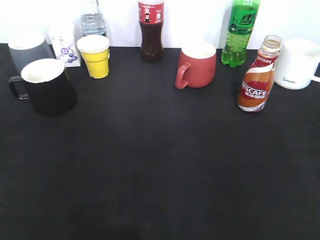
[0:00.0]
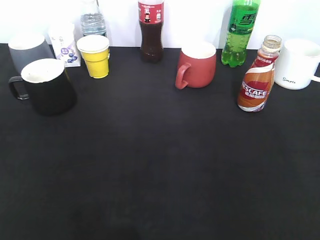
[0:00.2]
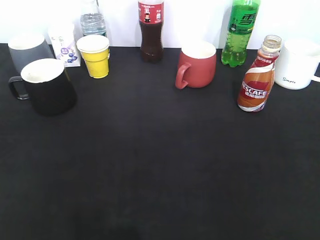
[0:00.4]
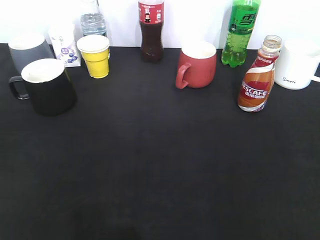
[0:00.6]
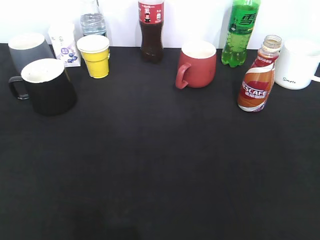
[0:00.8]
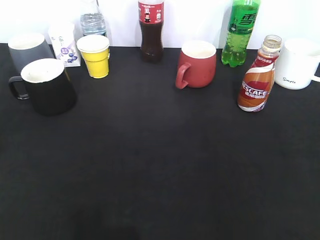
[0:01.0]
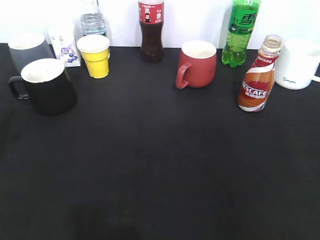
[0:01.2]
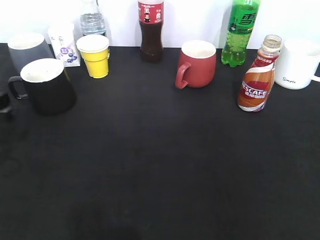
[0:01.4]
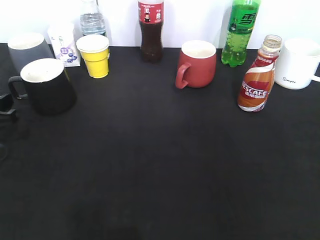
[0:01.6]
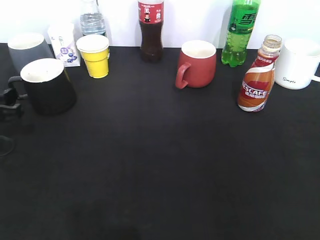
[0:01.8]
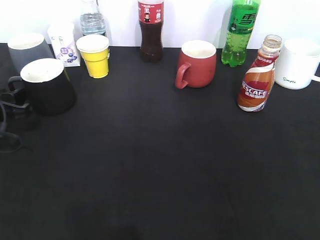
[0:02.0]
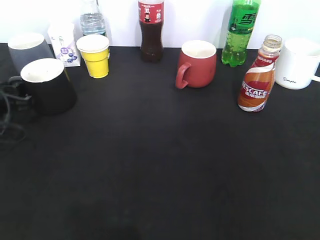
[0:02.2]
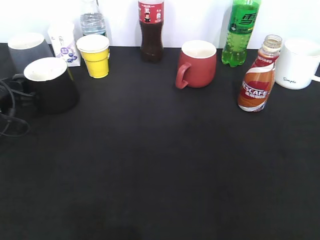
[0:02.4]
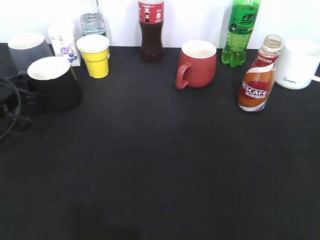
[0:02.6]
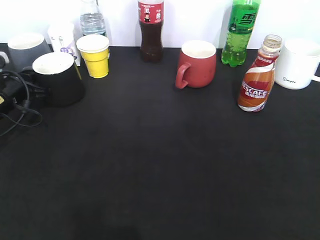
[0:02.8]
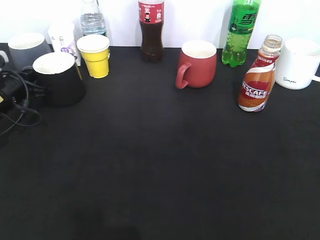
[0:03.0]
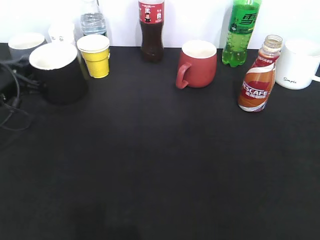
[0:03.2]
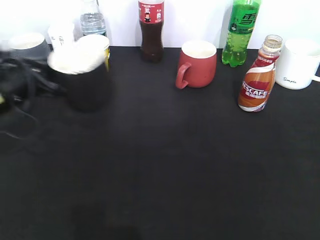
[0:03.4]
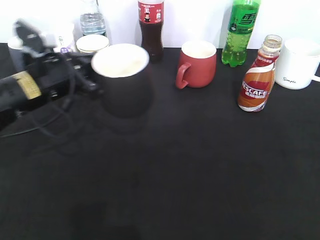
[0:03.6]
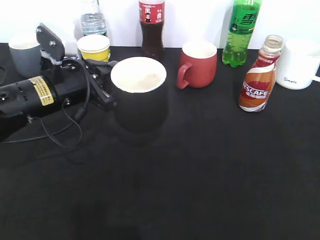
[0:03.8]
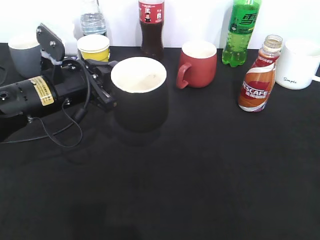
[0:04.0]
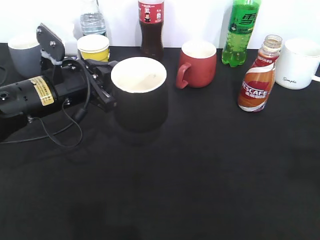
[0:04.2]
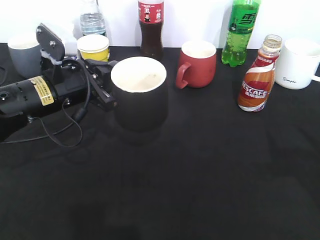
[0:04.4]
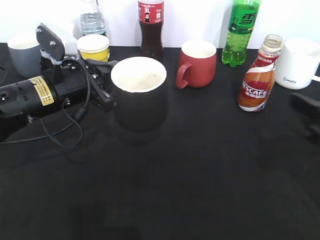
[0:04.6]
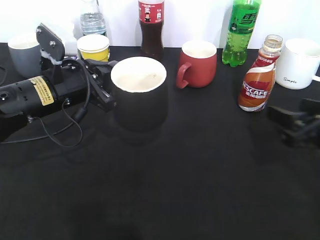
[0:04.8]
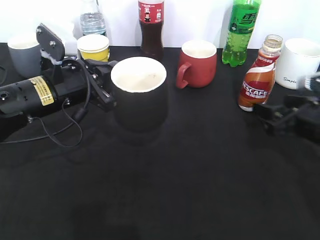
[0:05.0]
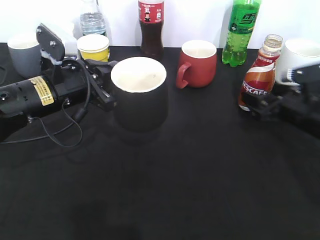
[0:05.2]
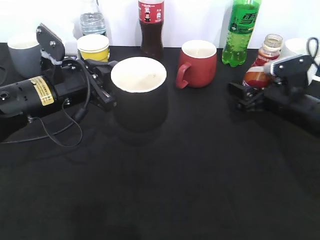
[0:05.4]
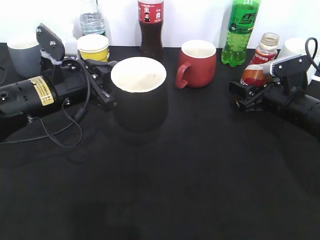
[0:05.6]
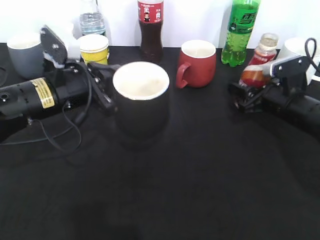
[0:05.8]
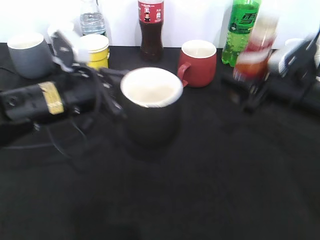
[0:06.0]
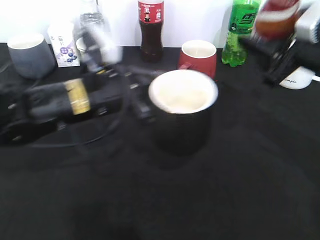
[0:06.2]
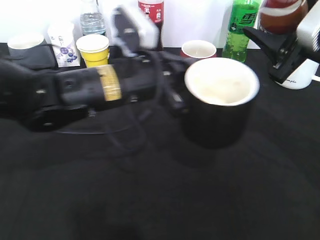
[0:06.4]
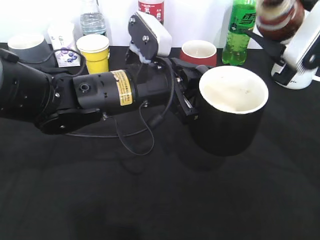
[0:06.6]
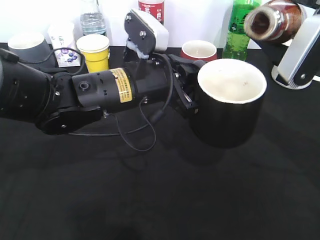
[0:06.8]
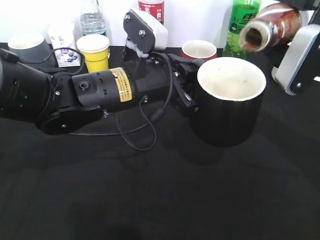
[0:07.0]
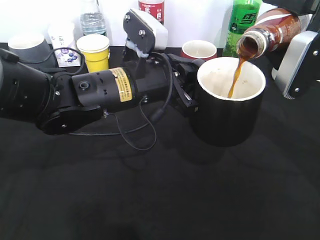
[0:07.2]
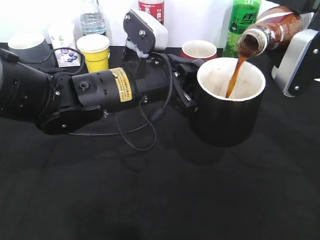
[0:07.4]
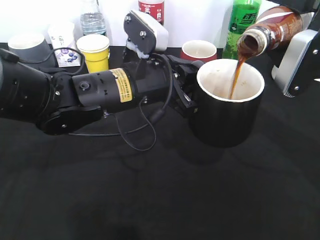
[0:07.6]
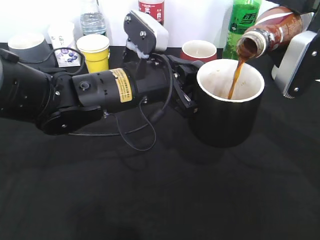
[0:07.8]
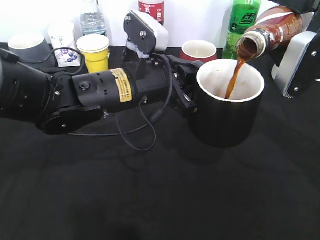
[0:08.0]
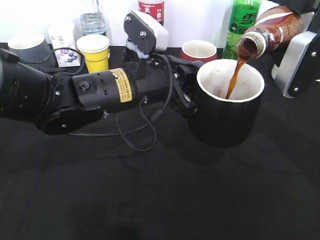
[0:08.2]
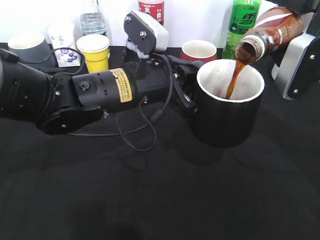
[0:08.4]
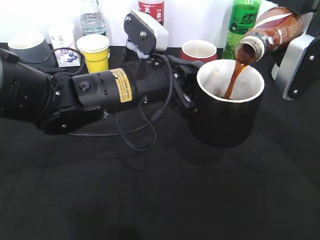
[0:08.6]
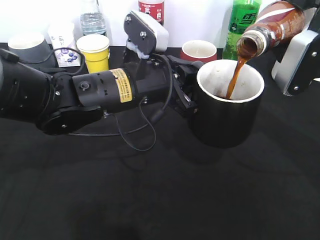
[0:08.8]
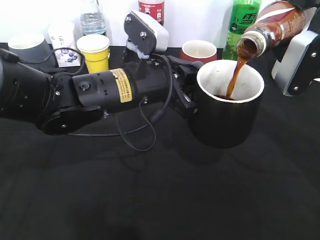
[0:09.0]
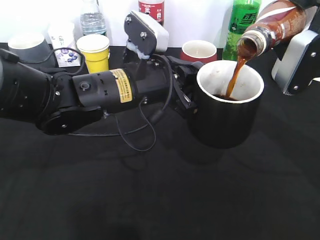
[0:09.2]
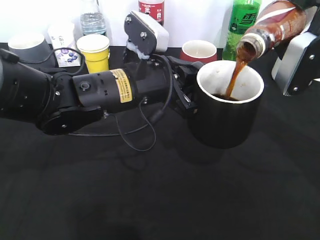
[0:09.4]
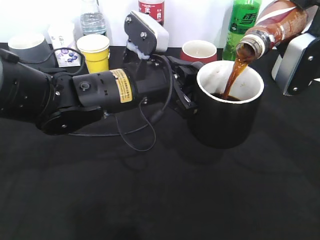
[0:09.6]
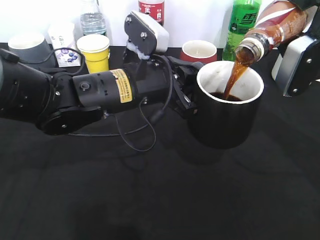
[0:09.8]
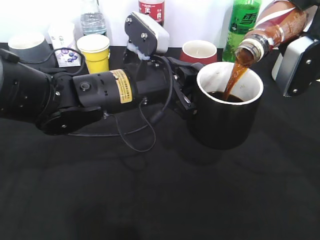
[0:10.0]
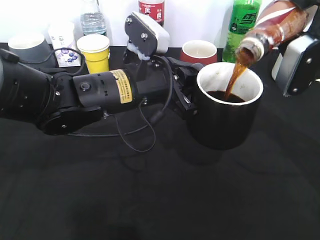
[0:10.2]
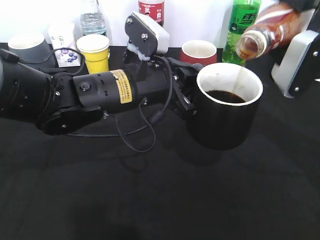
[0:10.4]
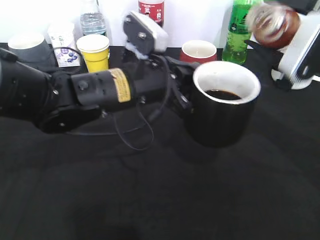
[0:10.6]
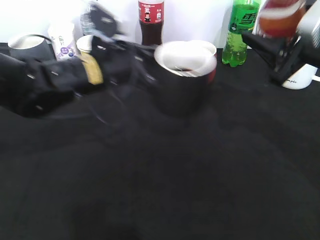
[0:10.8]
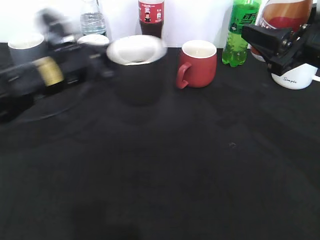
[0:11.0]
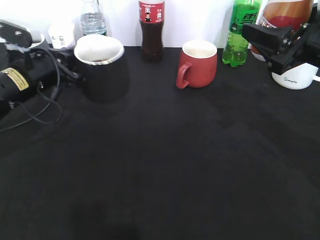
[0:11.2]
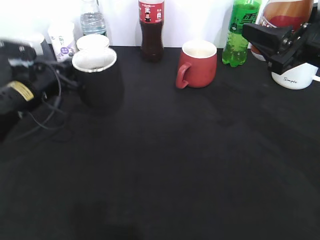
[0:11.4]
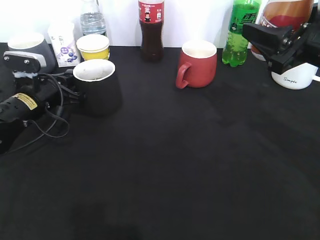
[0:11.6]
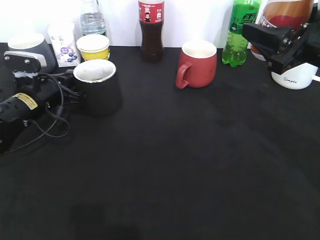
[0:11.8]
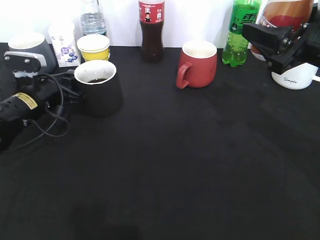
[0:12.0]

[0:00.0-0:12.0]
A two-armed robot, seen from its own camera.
Step, 0:00.6 to 0:02.8: Grasp the black cup with left gripper.
Step, 0:03.0 to 0:03.6: Lift the black cup with left gripper.
Step, 0:03.8 to 0:05.6: Grasp the bottle with coffee with right gripper.
Step, 0:05.8 to 0:10.8: Pour the coffee from bottle to cup with right gripper.
0:00.0 to 0:01.6: The left gripper heads forward and downward, covering approximately 30 cm.
0:01.6 to 0:03.0: The left gripper is displaced forward by roughly 10 cm, and closes up.
0:03.0 to 0:04.4: The right gripper moves forward, approximately 15 cm, while the left gripper moves to the right, upward and backward, about 15 cm.
0:04.4 to 0:06.0: The right gripper moves forward and downward, roughly 15 cm, and closes up.
0:06.0 to 0:07.6: The right gripper is displaced upward by approximately 10 cm; the left gripper shifts approximately 10 cm to the right.
0:07.6 to 0:10.4: The grippers make only small movements.
0:10.4 to 0:12.0: The left gripper heads to the left, downward and forward, covering about 25 cm, and opens.

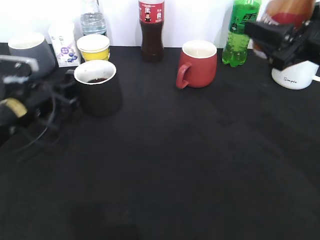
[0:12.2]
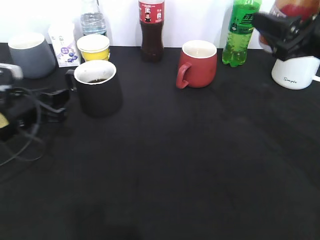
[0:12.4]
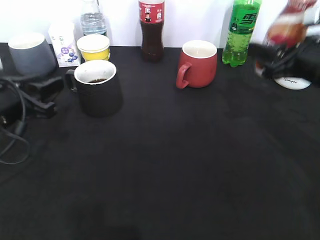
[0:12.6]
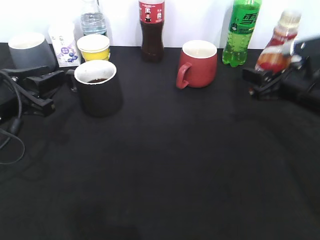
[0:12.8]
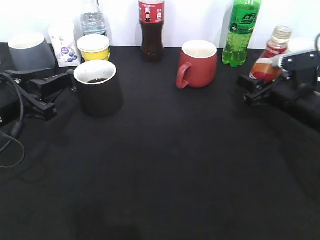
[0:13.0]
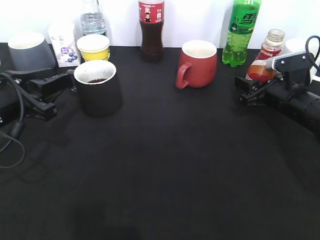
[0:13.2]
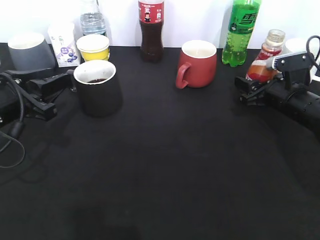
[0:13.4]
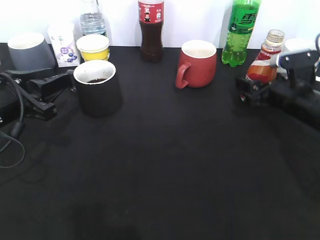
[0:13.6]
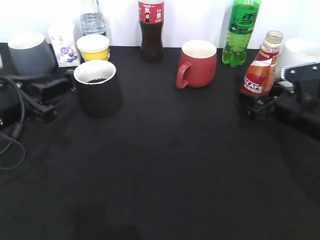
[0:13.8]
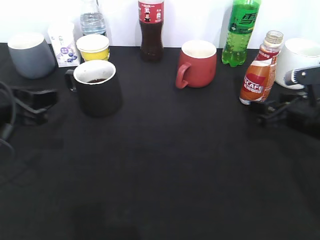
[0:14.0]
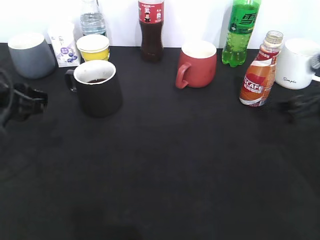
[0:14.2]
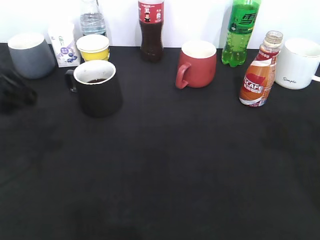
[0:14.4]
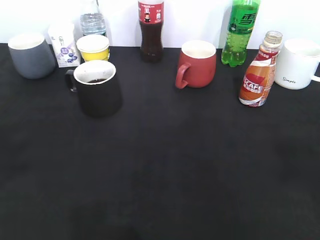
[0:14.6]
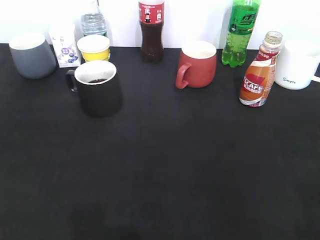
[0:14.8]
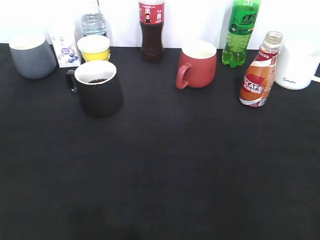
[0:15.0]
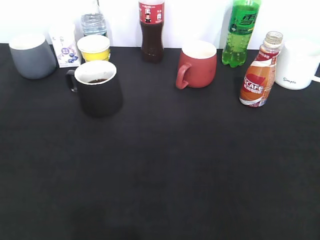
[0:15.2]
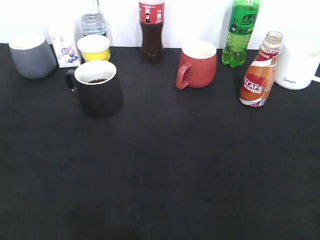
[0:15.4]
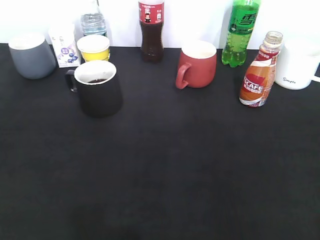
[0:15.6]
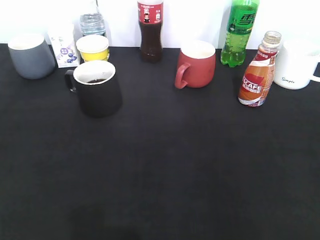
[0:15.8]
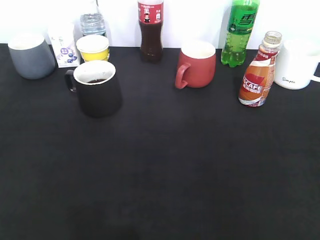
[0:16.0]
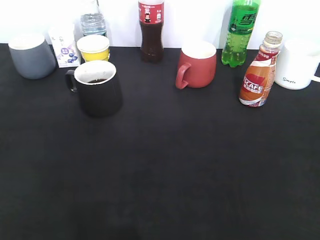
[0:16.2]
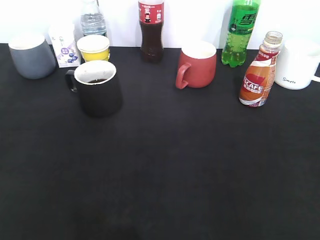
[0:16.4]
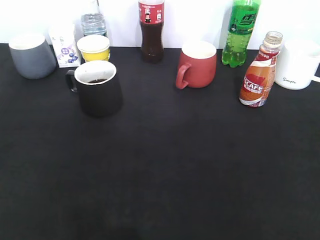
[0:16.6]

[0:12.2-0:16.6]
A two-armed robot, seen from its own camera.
Step, 0:12.4 to 0:13.8: Place the coffee bottle on the table with right gripper.
0:12.2 to 0:13.6: The right gripper is displaced downward and forward by some 15 cm, and opens up, while the left gripper goes approximately 10 cm backward and upward.
0:13.6 to 0:15.2: Both grippers travel together backward and upward, roughly 30 cm. The right gripper closes its fingers.
